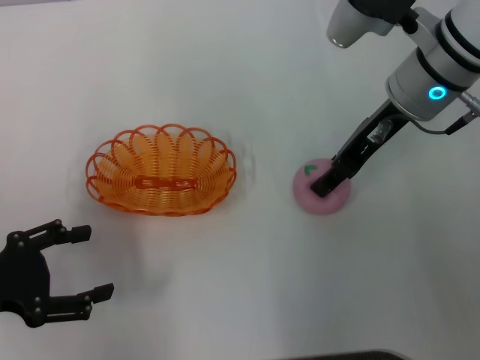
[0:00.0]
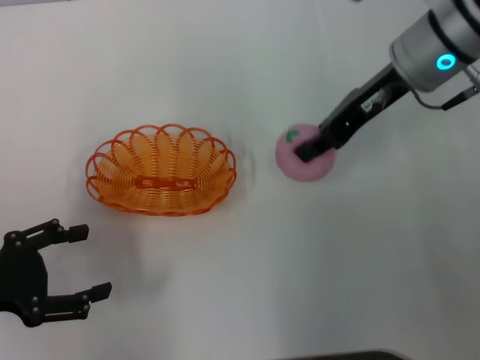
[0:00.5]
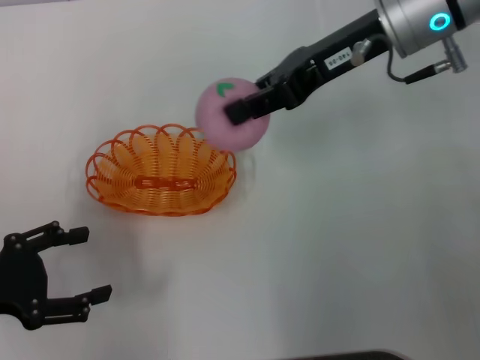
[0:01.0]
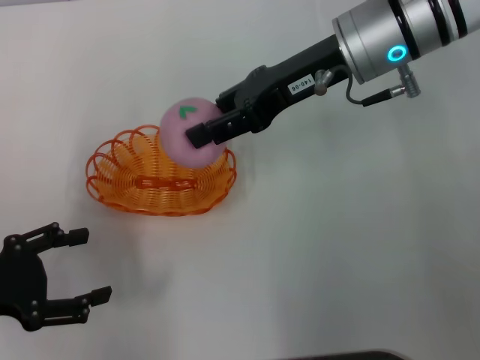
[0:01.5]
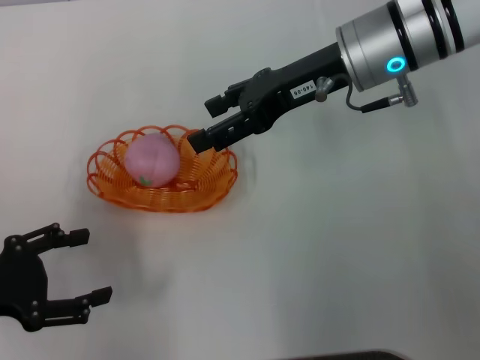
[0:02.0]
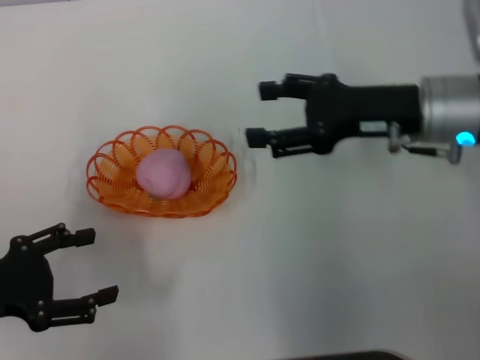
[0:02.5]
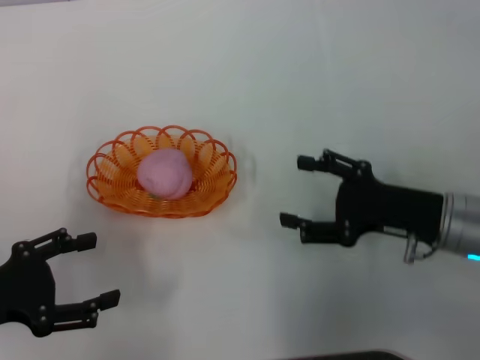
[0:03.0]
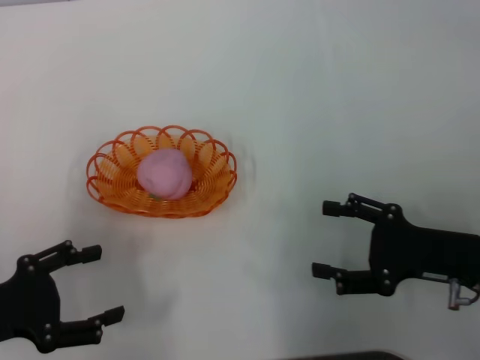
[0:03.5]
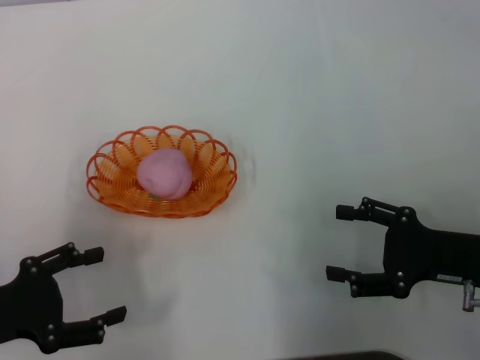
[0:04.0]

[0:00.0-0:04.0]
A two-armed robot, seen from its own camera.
Step, 0:01.0 to 0:02.0: Place the peach into the basket with the right gripper.
0:00.0 to 0:02.0: The right gripper closes, then opens again.
0:02.0 to 0:04.0: The right gripper goes roughly 25 cm backward, downward and to the right.
